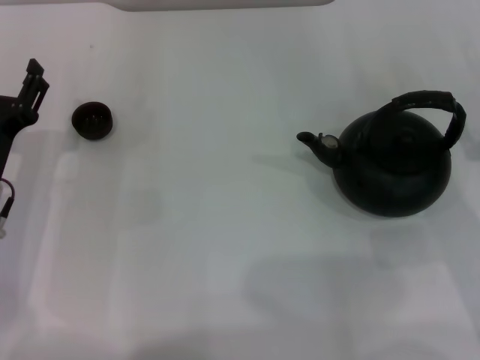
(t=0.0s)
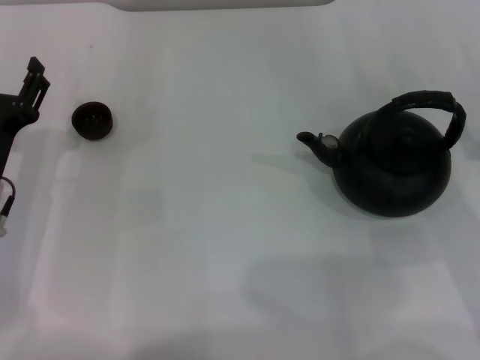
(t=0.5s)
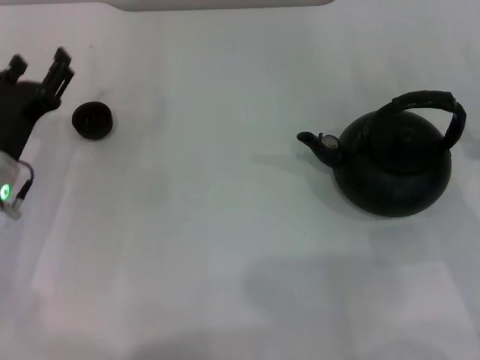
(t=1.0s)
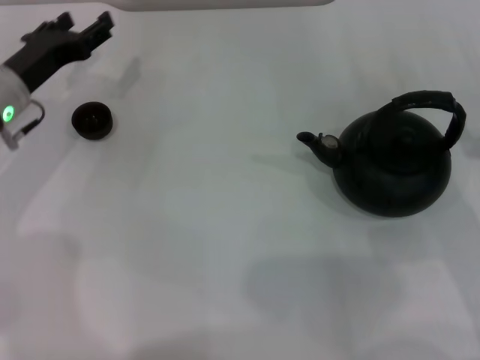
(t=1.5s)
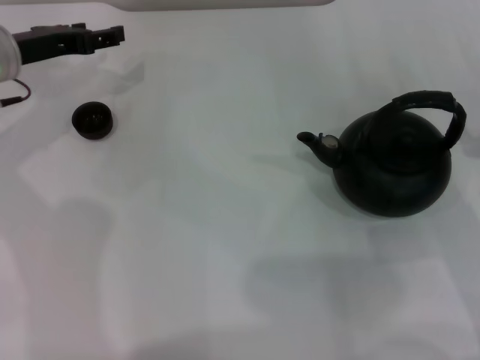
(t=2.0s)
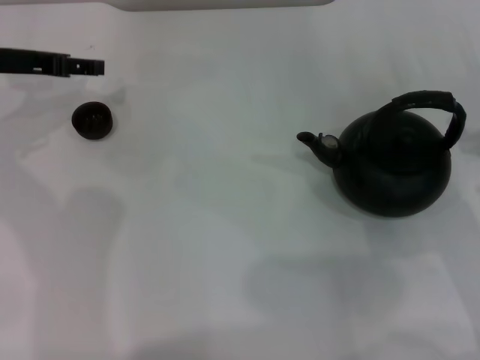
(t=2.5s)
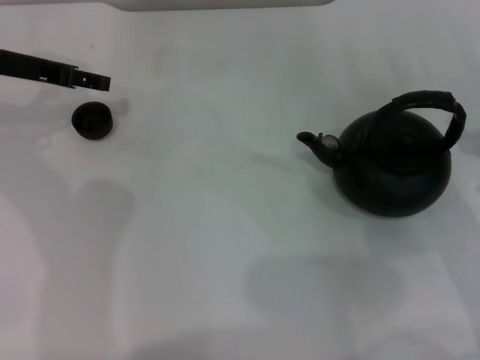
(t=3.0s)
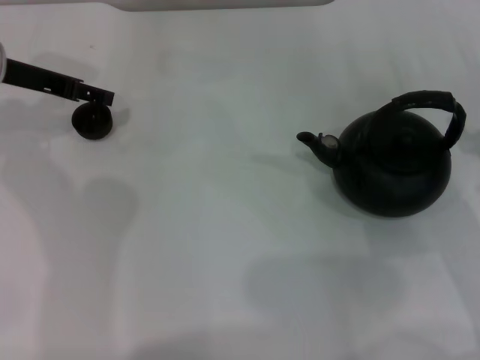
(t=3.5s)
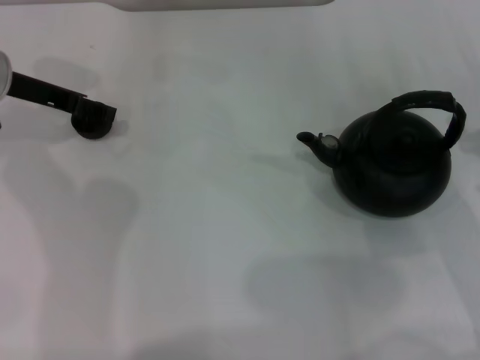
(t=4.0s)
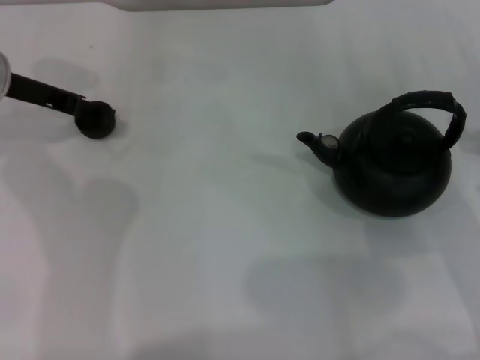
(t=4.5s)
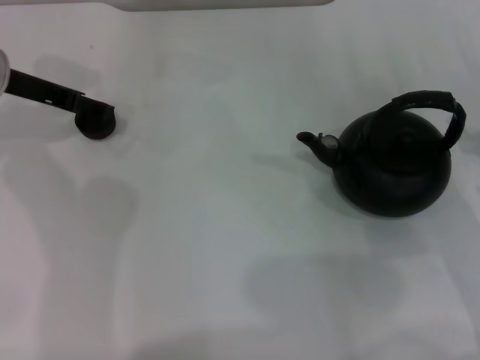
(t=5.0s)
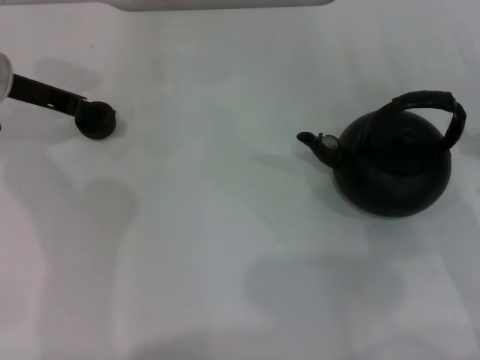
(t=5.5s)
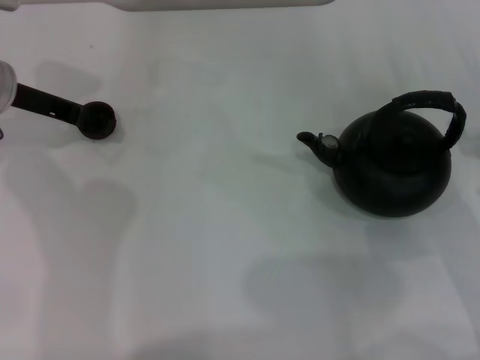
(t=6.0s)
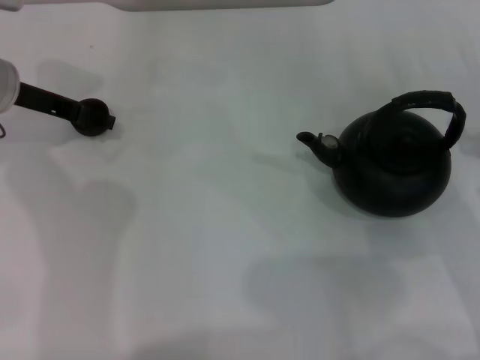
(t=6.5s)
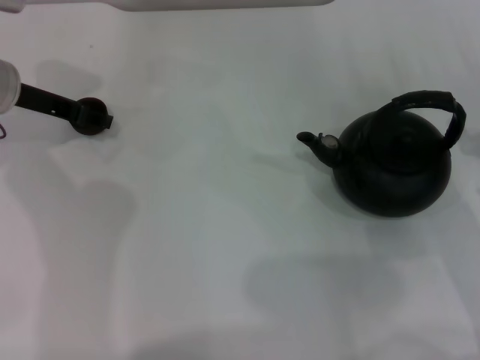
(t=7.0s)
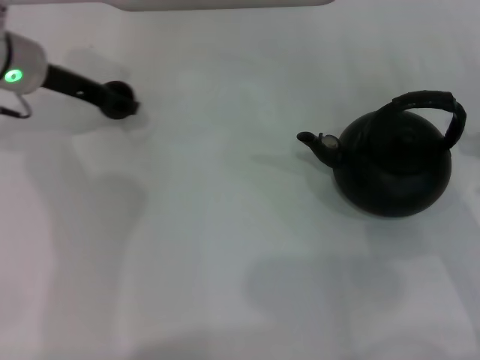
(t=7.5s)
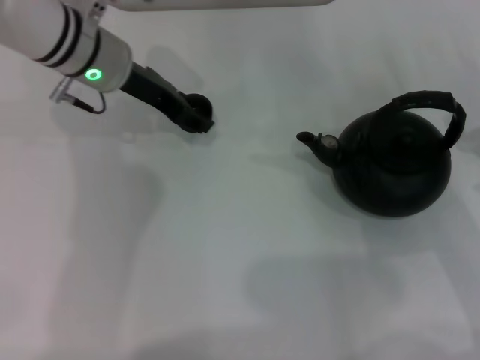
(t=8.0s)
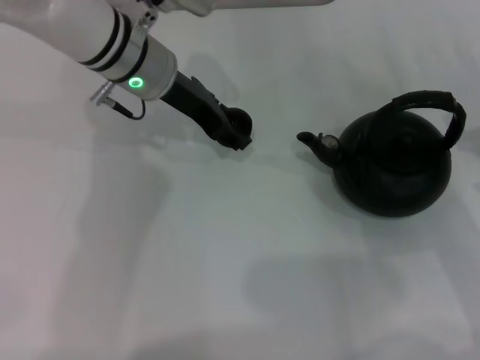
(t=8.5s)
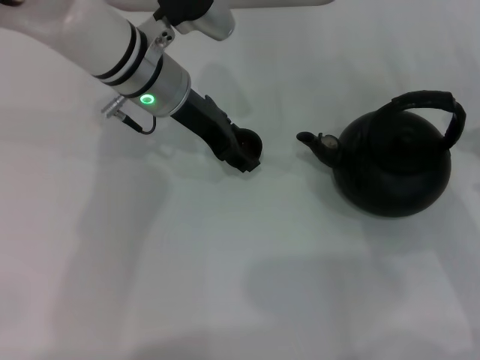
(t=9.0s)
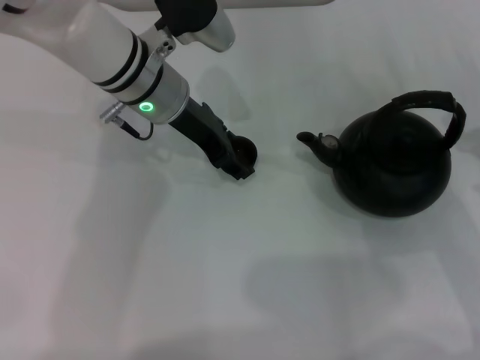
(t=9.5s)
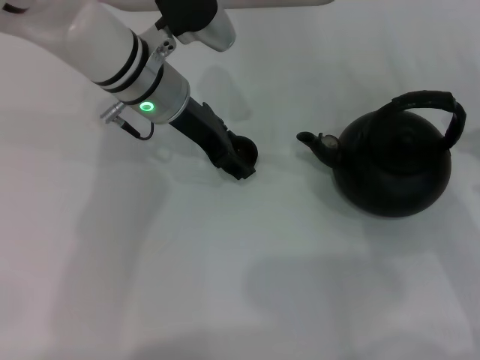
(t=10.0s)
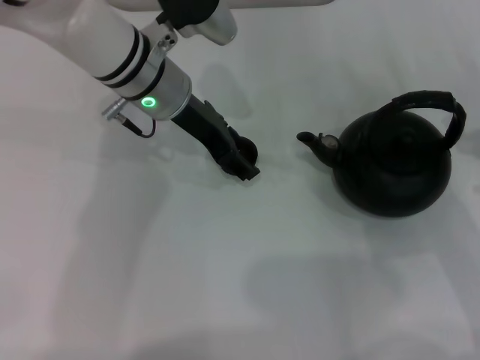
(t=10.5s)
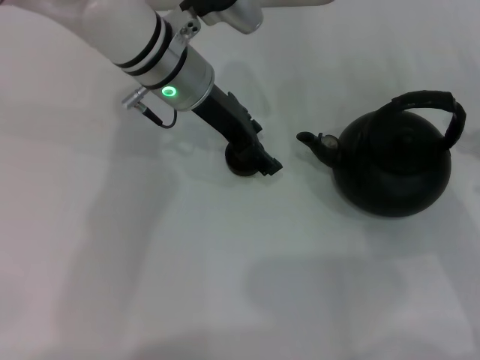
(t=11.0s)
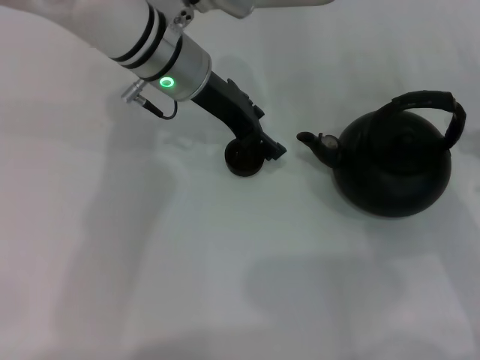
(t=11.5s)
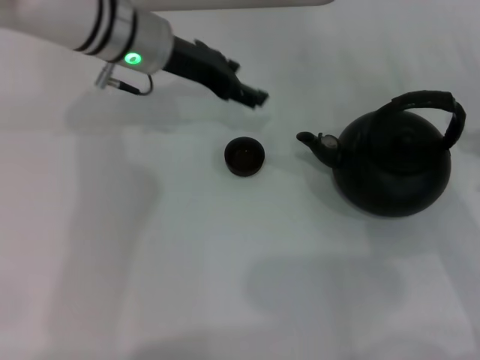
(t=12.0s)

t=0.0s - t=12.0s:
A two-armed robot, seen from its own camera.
Task of the whole recording: Grasp the handle of the teapot with one hand and pour tea into the teacup.
Step, t=0.0s - t=7.5s: Pick up the teacup with the left gripper.
Step, t=8.0s - t=10.5s: Place the teacup in the center of view with the left gripper.
t=0.0s - t=2.0s: The left gripper heads forward and upward, covering some 15 cm.
t=4.0s - t=6.0s: The two grippers keep their place.
t=6.0s - t=8.0s: The left gripper moves to the right, approximately 10 cm, and closes up.
t=8.0s - t=10.0s: The left gripper heads to the right, covering about 5 cm.
t=10.0s - t=12.0s: The left gripper opens.

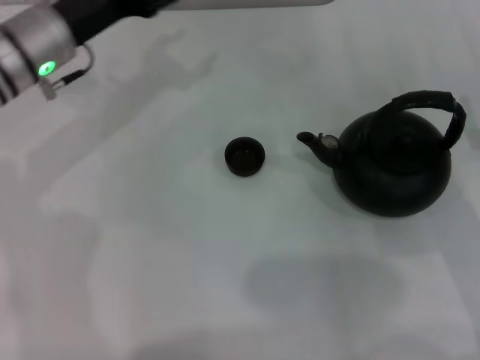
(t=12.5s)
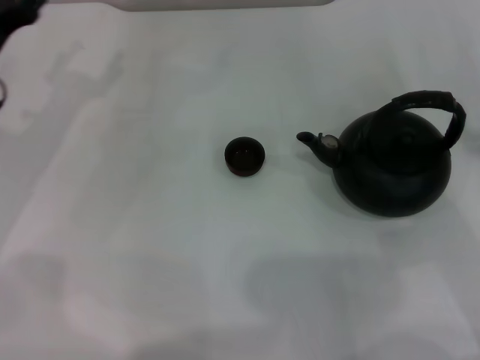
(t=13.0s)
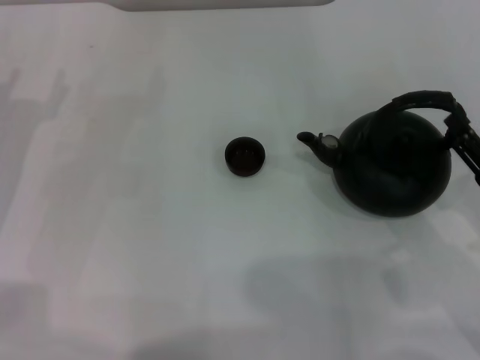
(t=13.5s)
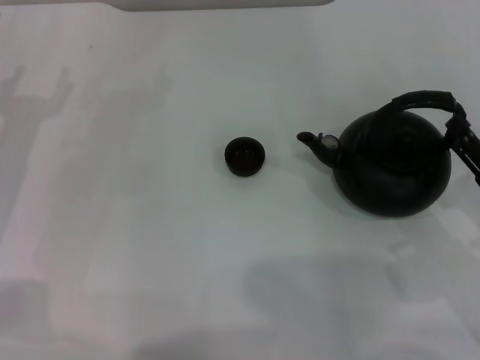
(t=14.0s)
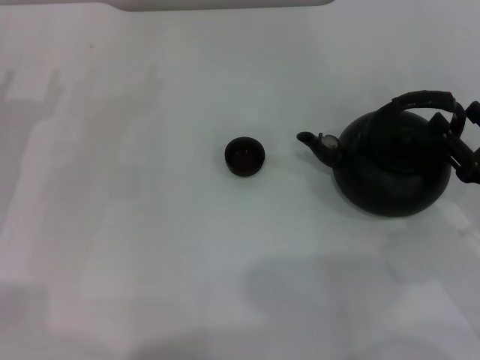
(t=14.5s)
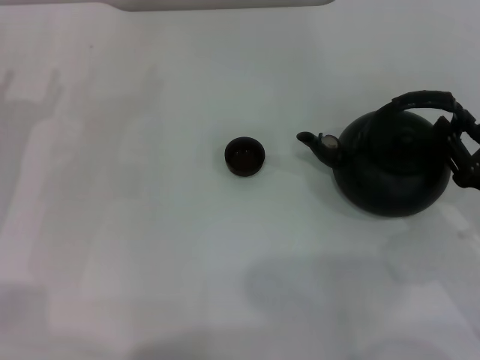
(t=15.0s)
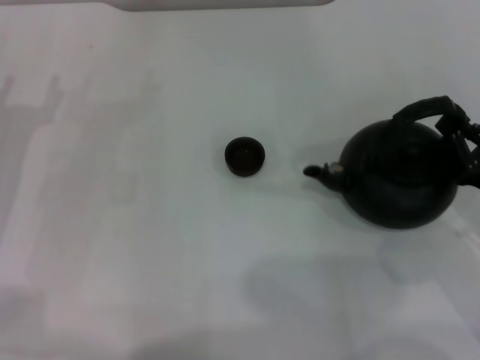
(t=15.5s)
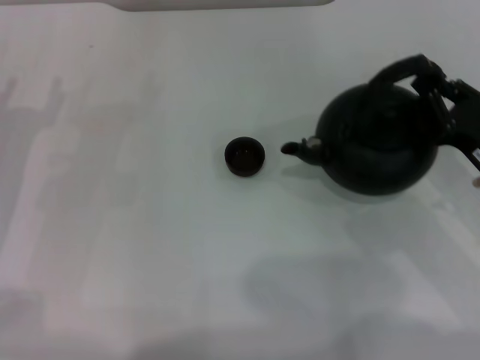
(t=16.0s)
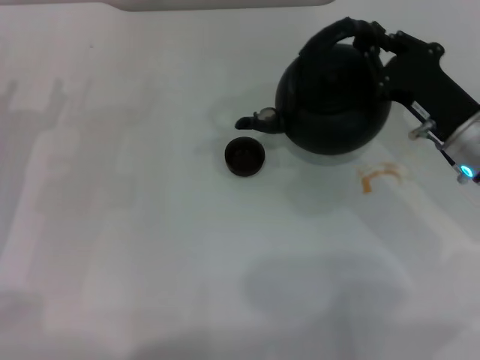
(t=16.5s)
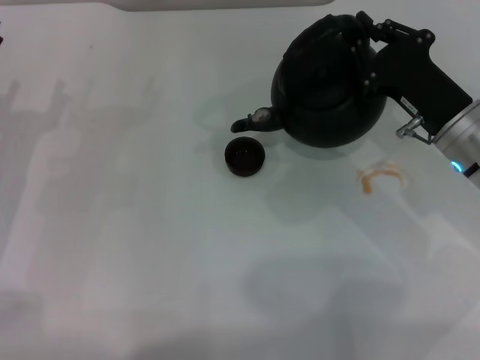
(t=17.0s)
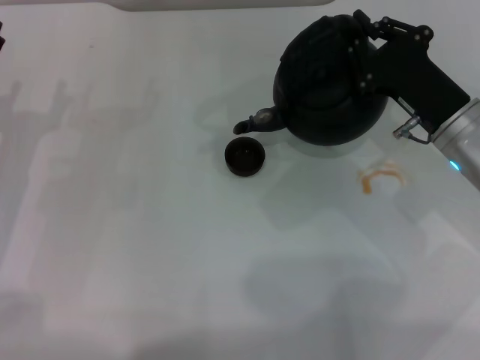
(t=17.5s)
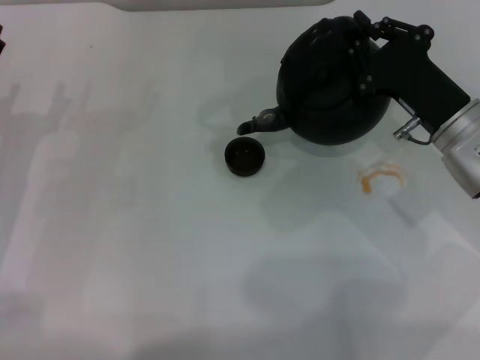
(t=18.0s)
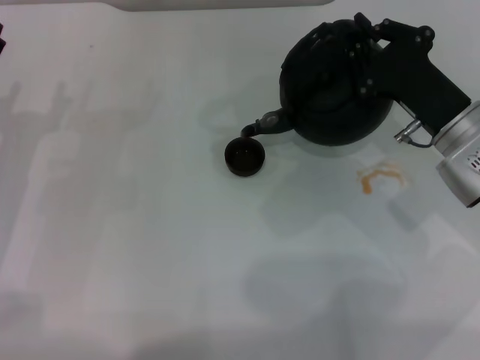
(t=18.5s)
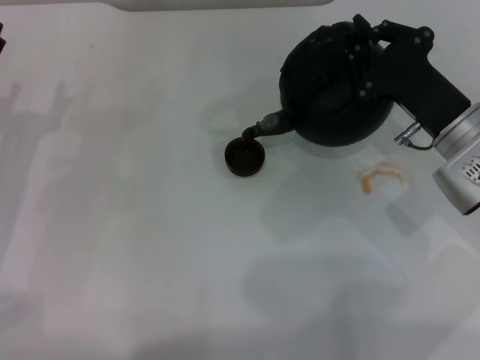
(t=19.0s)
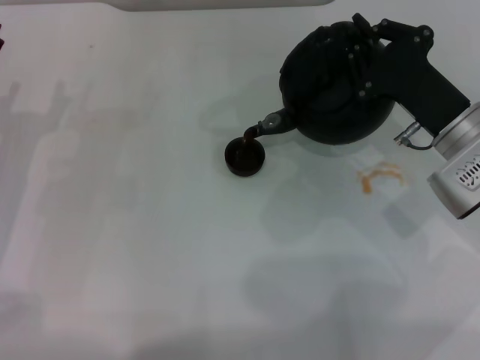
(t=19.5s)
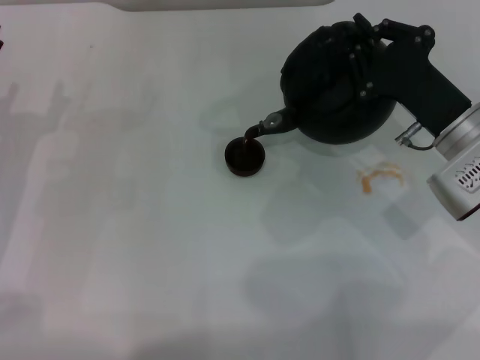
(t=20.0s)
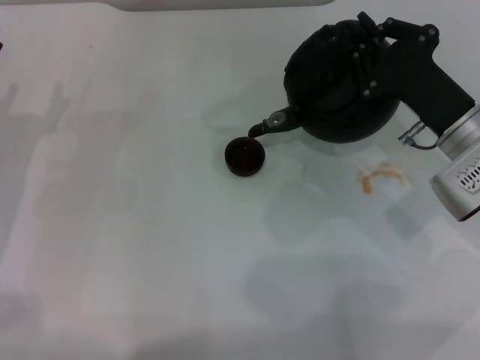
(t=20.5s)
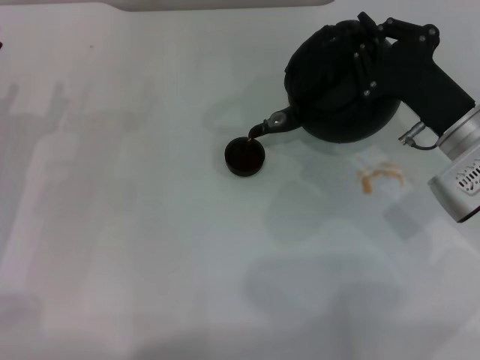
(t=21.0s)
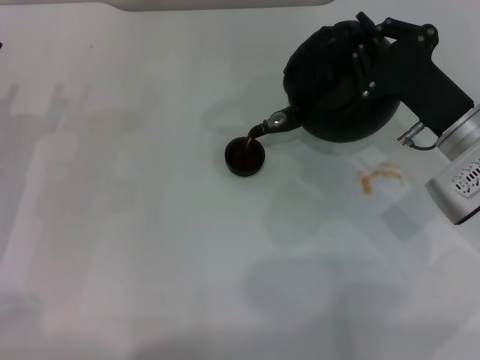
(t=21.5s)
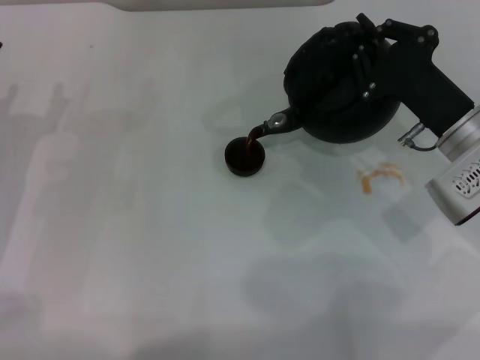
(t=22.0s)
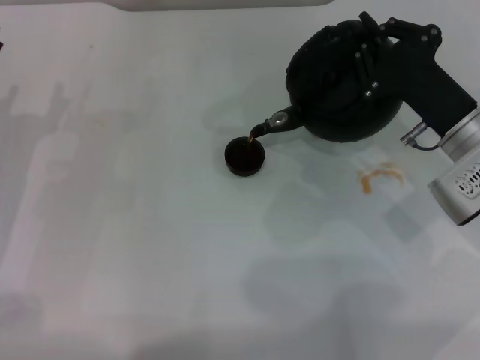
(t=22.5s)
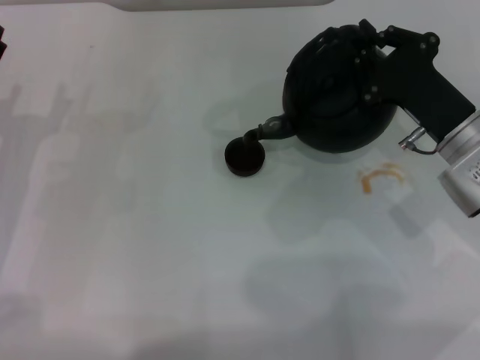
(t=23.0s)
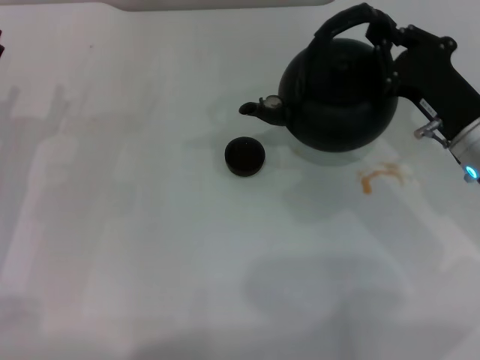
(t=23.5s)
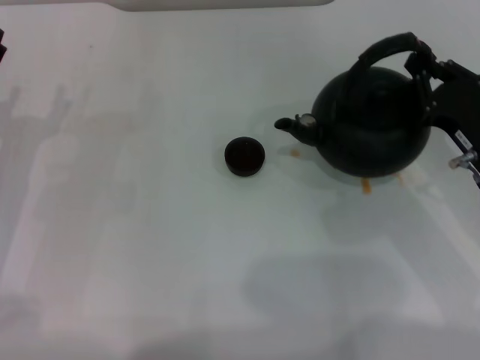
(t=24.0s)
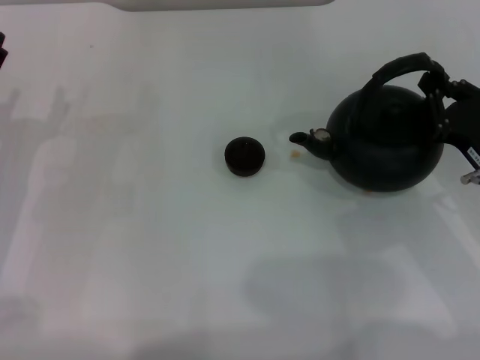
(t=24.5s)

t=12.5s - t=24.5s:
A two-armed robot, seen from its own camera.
Task of the whole recording: Grasp the handle of the teapot with one hand and pour tea into the teacup.
Step, t=12.5s - t=16.0s: Pick up the teapot with the right gripper.
Step, t=16.5s - t=23.0s: Pour tea into the teacup with the right gripper.
t=12.5s - t=14.5s: The left gripper moves to the left, backward and downward, approximately 15 cm.
t=14.5s - t=16.5s: The right gripper travels forward and to the left by about 10 cm, and closes.
t=18.5s - t=20.5s: The grippers move only a little.
t=20.5s - t=22.5s: Both grippers stay about where they are.
t=22.5s - t=24.5s: The right gripper moves to the right, roughly 5 cm.

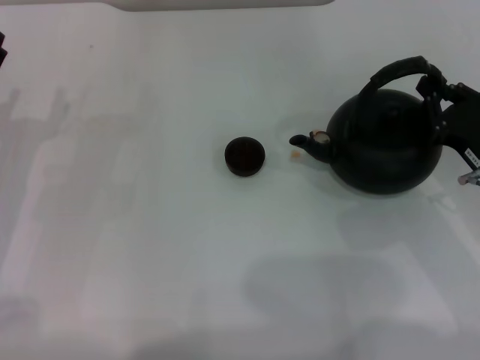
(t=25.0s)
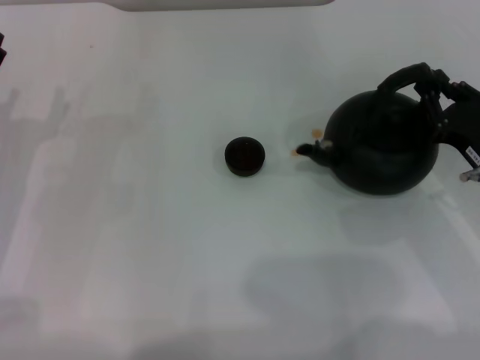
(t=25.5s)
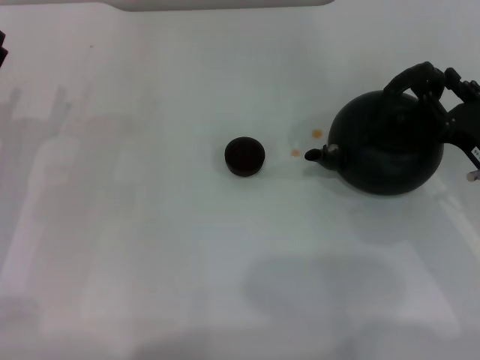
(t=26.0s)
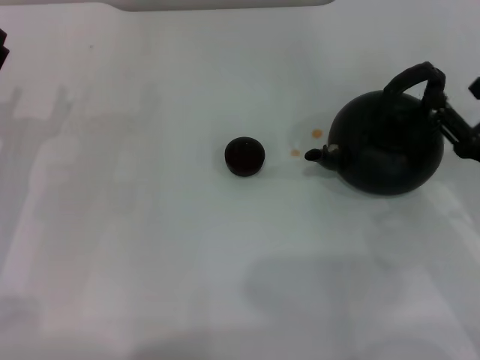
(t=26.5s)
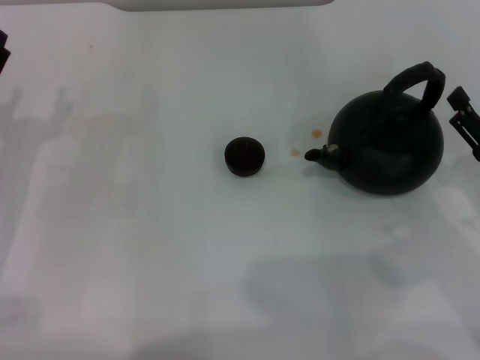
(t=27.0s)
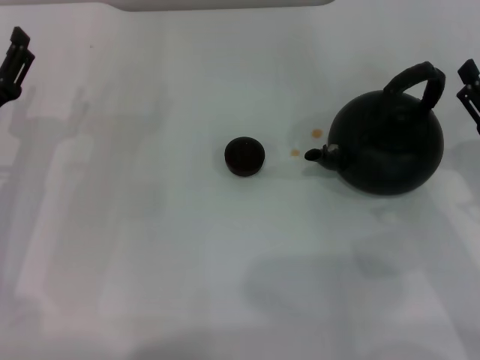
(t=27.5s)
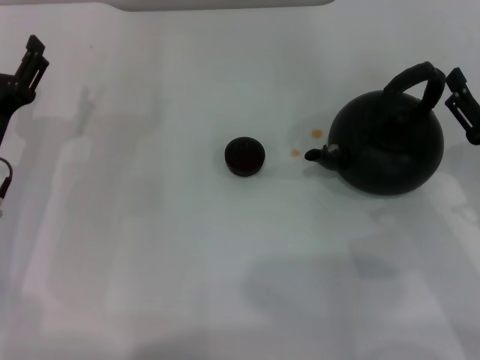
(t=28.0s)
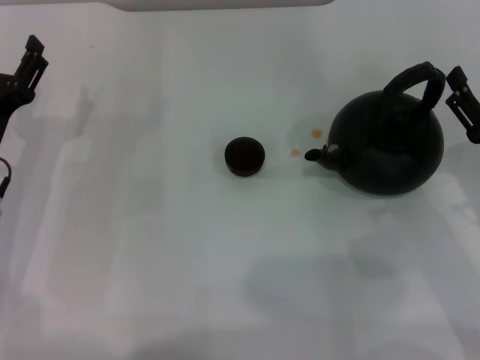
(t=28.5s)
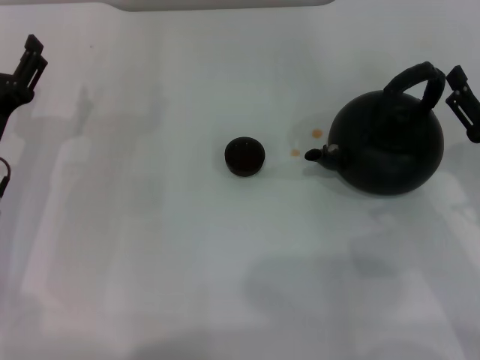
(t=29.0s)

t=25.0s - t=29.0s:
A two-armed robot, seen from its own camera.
Task of the whole recording: Grasp the handle of the teapot with one hand and pour tea into the teacup.
t=25.0s - t=27.0s: The right gripper opens.
t=27.0s - t=29.0s: The grippers move only a little.
